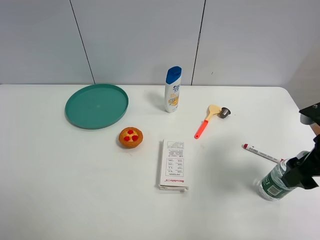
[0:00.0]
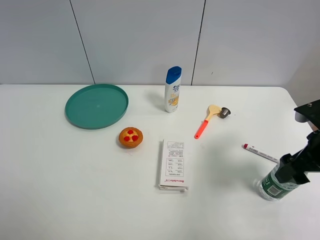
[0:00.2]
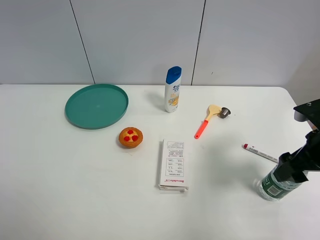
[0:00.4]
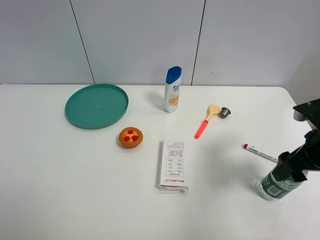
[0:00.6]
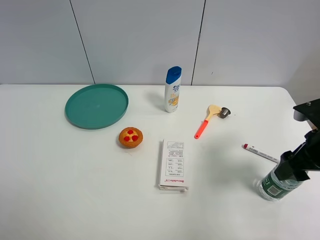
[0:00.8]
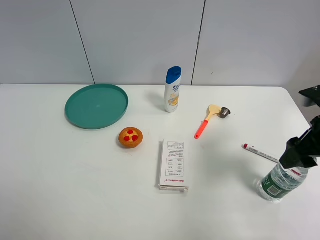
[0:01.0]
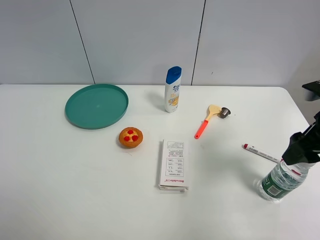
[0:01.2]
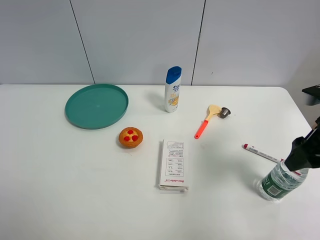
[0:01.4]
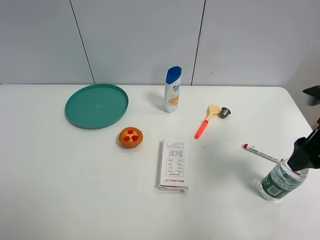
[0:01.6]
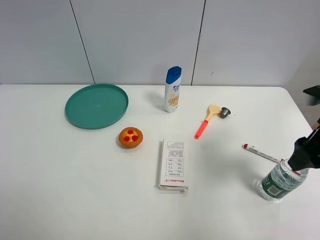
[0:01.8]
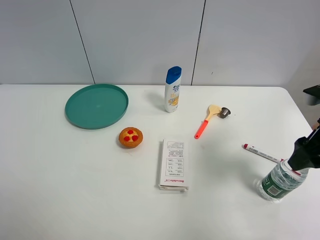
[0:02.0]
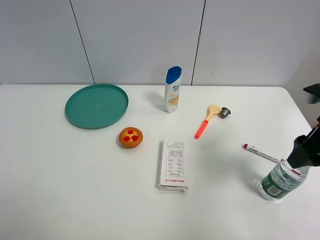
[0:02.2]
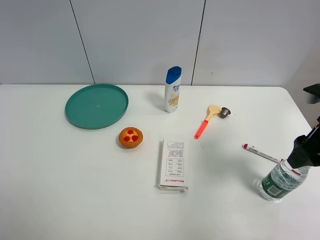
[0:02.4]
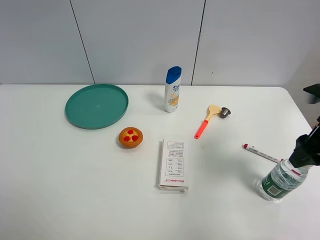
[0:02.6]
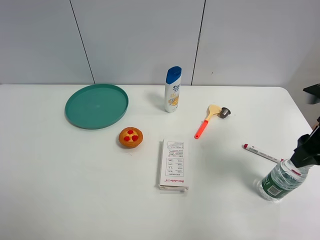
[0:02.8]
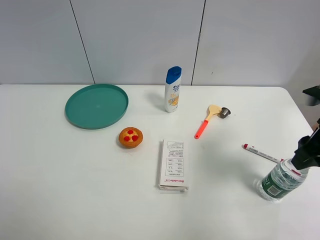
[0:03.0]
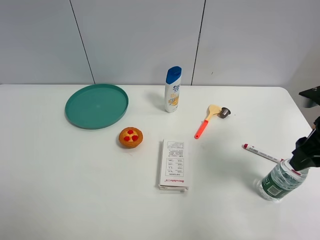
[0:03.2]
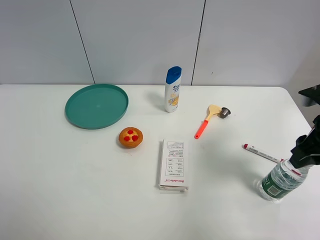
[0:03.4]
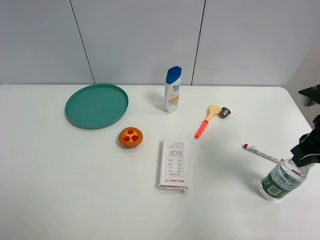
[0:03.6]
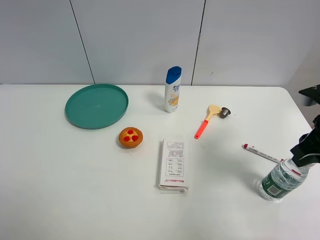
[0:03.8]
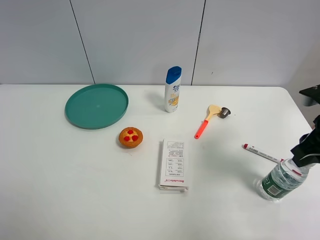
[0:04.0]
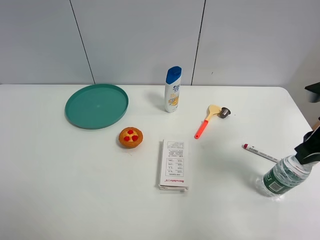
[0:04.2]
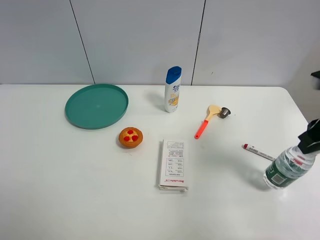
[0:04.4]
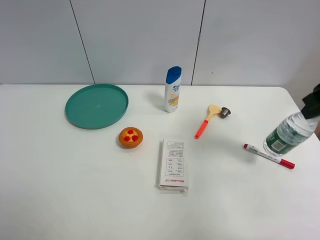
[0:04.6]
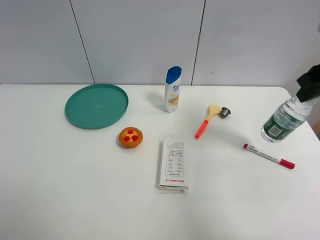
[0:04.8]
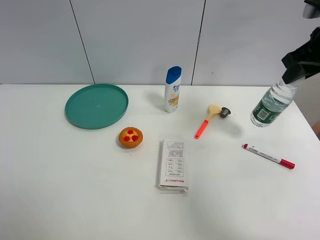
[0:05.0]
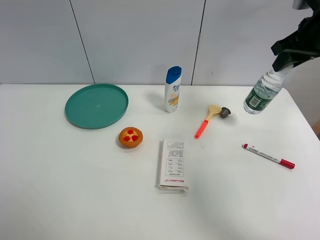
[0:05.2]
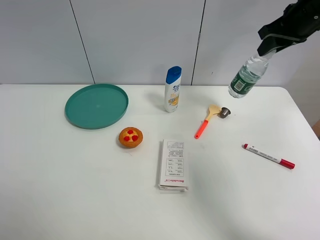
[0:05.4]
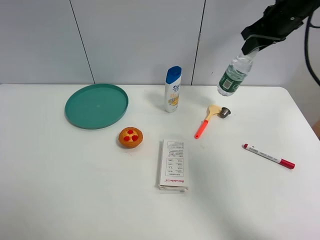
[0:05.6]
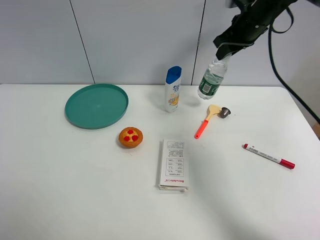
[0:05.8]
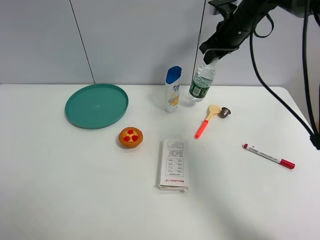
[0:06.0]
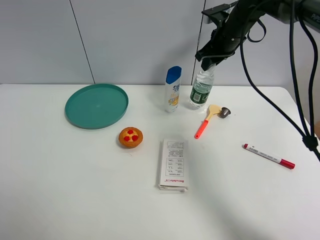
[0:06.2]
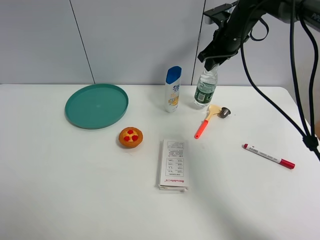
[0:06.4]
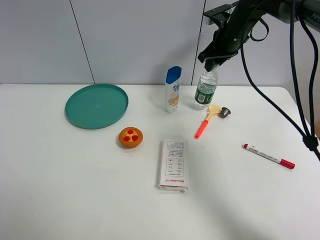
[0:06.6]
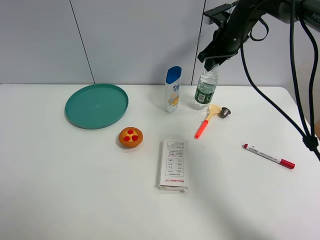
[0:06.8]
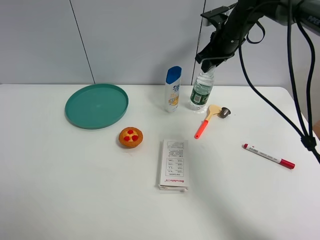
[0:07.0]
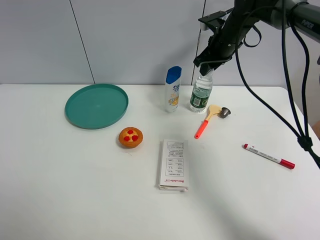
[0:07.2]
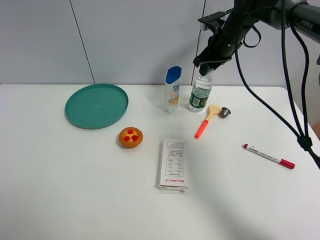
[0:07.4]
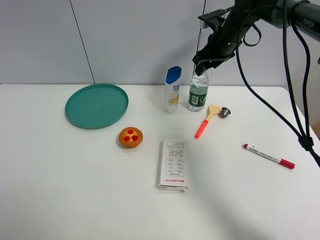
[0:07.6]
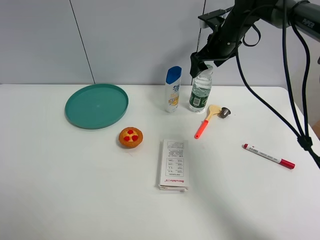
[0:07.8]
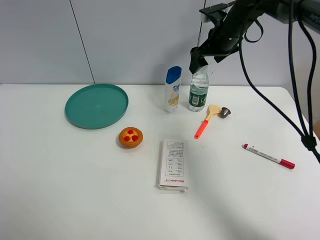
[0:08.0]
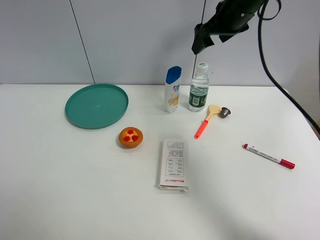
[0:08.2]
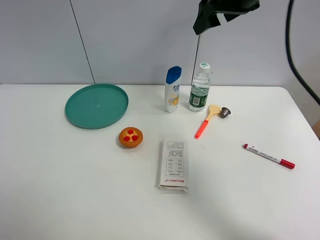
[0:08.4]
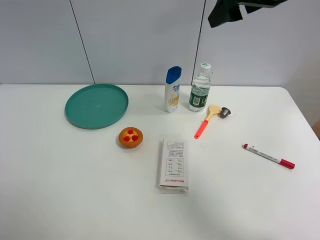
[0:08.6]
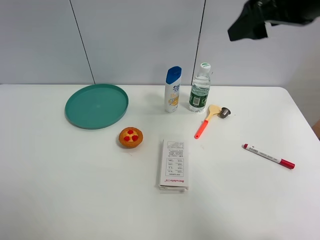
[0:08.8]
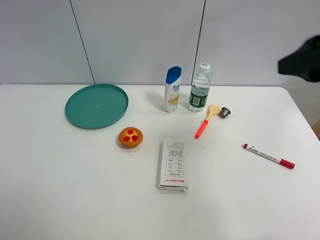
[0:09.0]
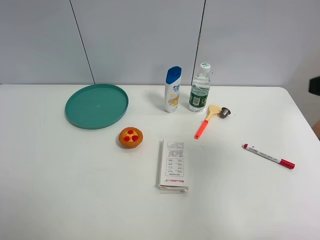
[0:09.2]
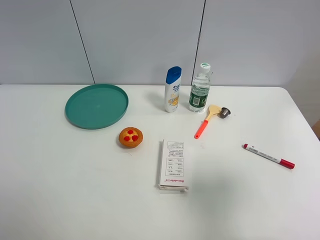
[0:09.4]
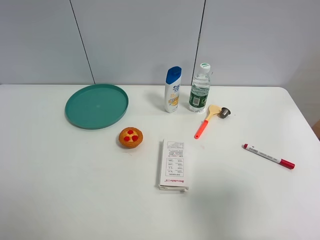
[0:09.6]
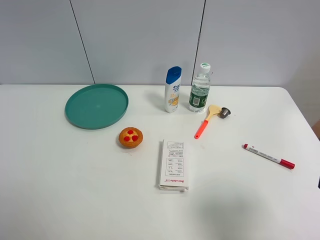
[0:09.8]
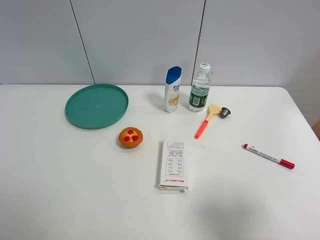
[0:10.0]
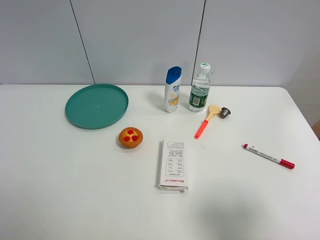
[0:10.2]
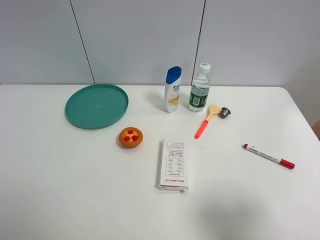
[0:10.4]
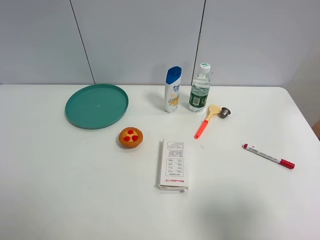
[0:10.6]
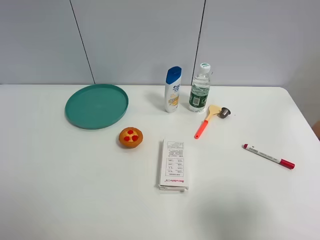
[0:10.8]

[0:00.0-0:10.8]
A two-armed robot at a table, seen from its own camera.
Task of the whole recording: the gripper move the object.
Step, 0:00.0 to 0:03.6: Grasp the YiBao mineral water with the right gripper.
Step, 0:03.8 to 0:07.6: Place the YiBao mineral water on the table with the right gripper.
0:00.0 to 0:01.6: The grippers move only a little.
0:01.6 to 0:03.0: Both grippers stay about where they are.
0:03.0 to 0:04.6: The right gripper shifts some 5 cm upward.
0:04.6 to 0:06.2: The right gripper shifts approximately 25 cm forward and to the left.
0:06.2 to 0:07.8: The right gripper opens.
0:07.8 to 0:09.2: The right gripper shifts about 35 cm backward.
0:09.2 to 0:10.8: The right gripper shifts some 15 cm backward and downward.

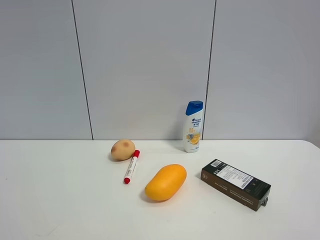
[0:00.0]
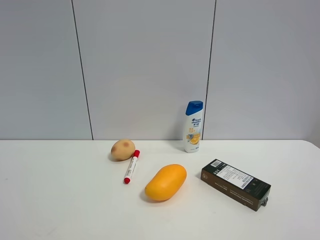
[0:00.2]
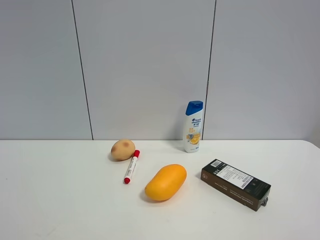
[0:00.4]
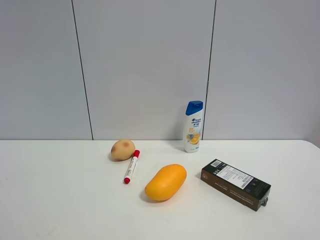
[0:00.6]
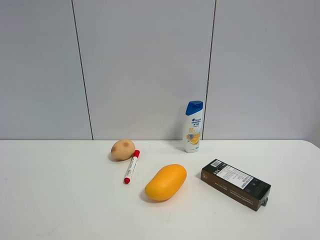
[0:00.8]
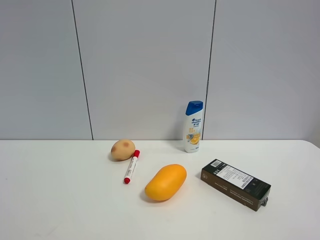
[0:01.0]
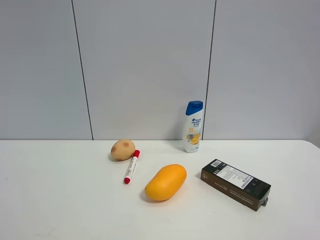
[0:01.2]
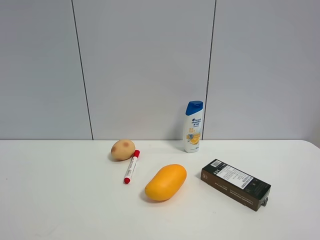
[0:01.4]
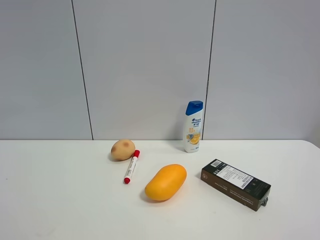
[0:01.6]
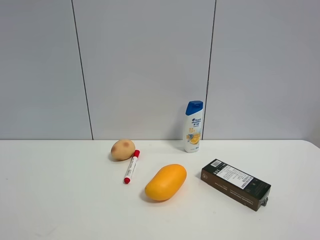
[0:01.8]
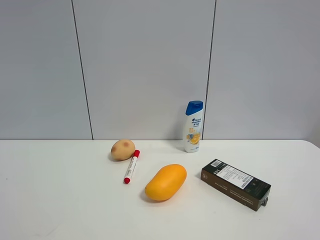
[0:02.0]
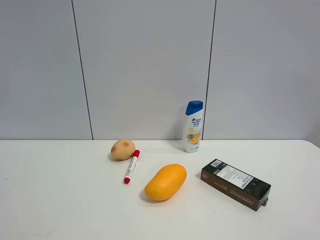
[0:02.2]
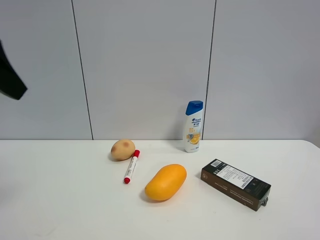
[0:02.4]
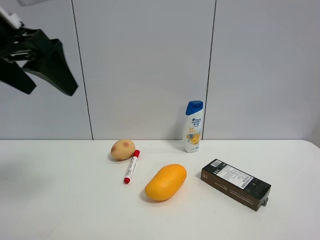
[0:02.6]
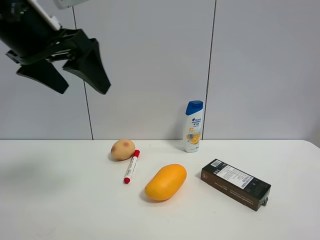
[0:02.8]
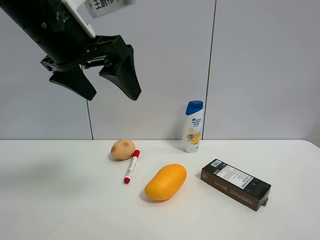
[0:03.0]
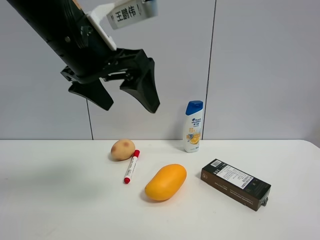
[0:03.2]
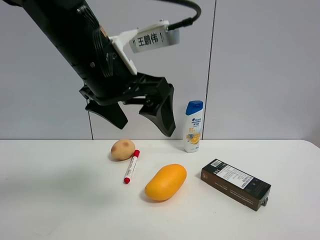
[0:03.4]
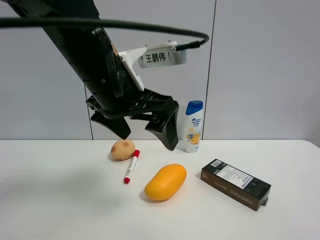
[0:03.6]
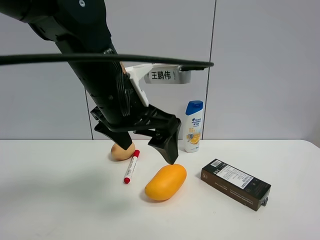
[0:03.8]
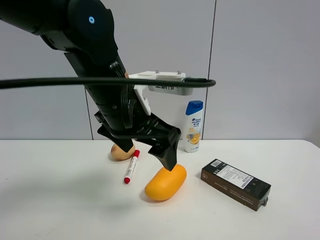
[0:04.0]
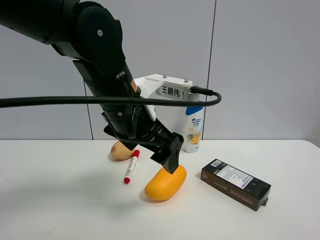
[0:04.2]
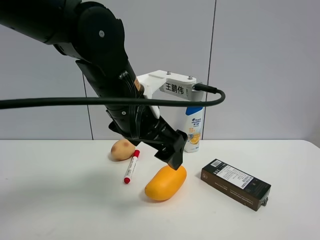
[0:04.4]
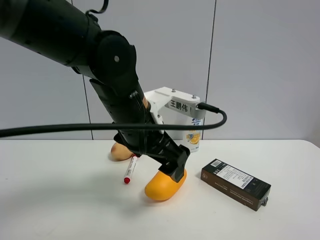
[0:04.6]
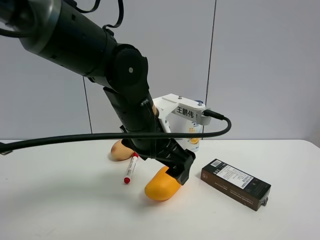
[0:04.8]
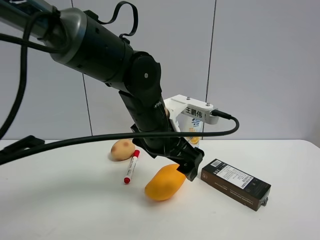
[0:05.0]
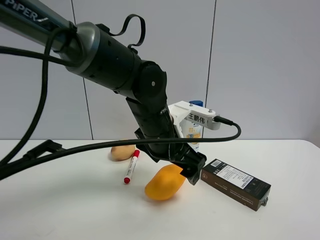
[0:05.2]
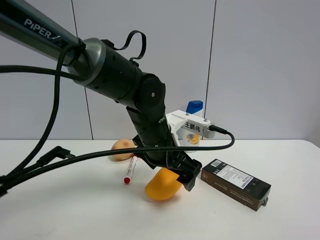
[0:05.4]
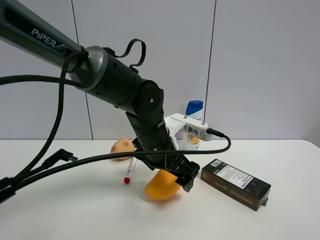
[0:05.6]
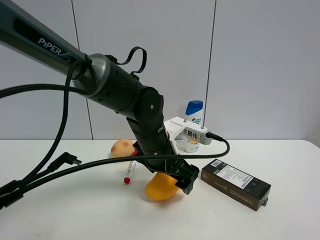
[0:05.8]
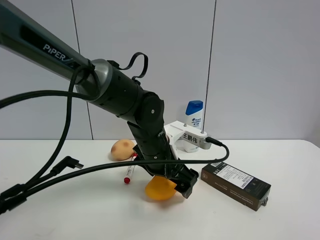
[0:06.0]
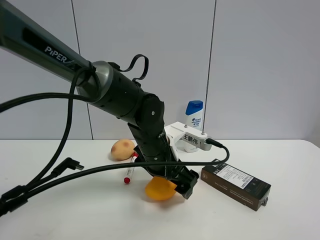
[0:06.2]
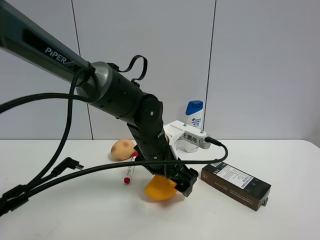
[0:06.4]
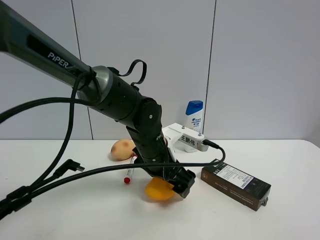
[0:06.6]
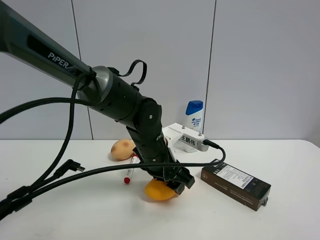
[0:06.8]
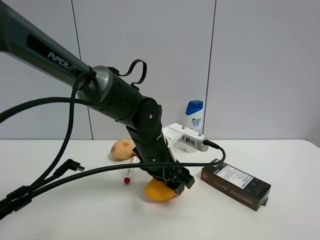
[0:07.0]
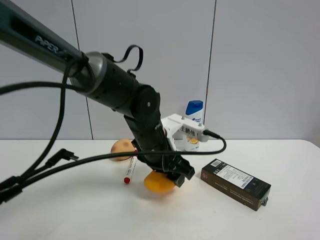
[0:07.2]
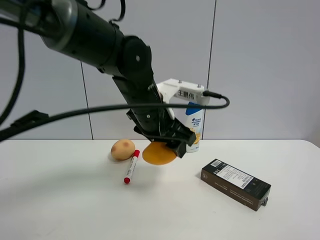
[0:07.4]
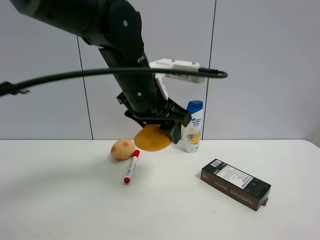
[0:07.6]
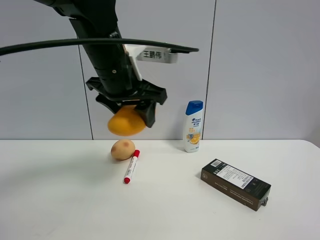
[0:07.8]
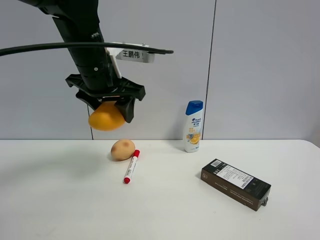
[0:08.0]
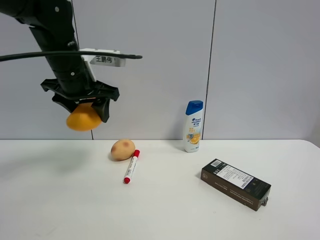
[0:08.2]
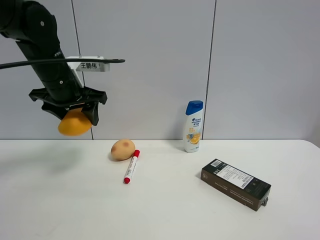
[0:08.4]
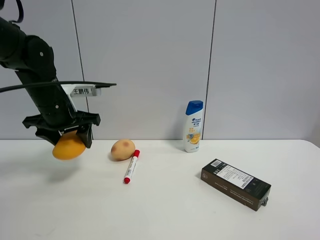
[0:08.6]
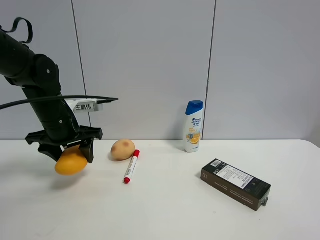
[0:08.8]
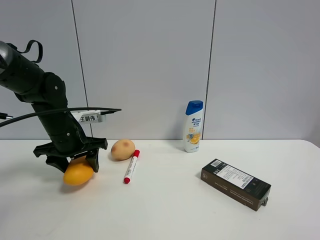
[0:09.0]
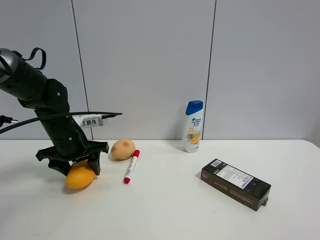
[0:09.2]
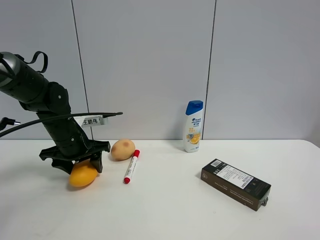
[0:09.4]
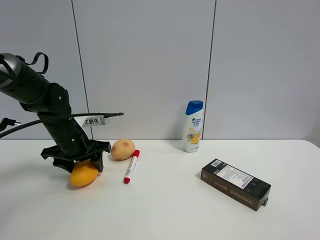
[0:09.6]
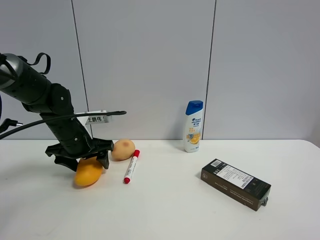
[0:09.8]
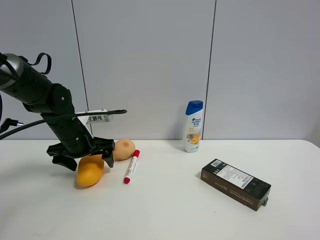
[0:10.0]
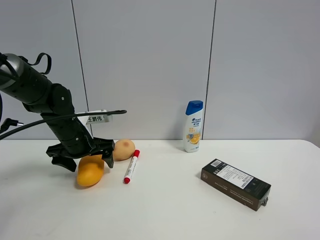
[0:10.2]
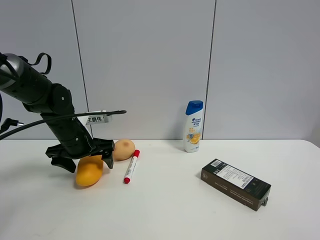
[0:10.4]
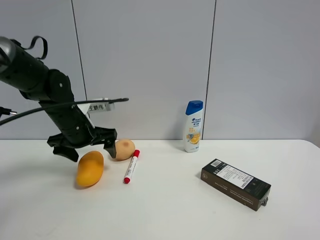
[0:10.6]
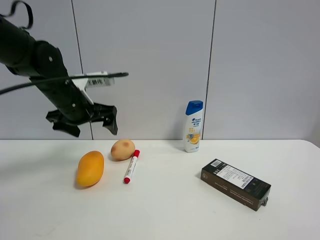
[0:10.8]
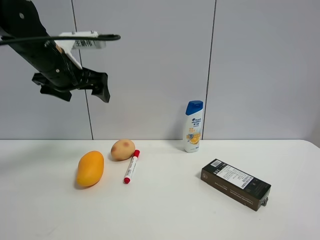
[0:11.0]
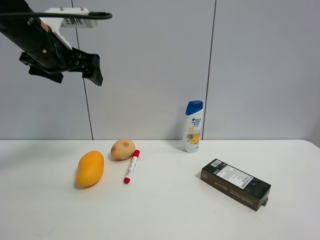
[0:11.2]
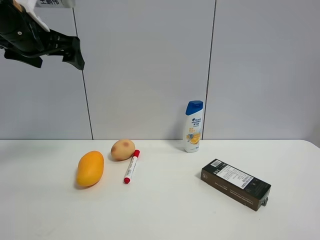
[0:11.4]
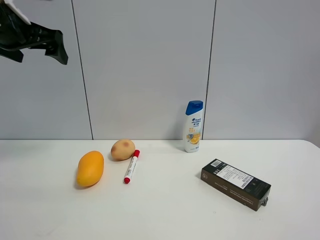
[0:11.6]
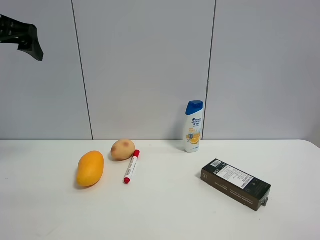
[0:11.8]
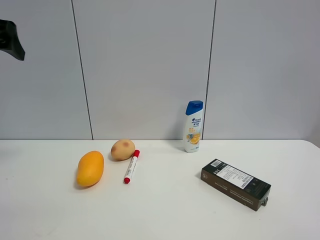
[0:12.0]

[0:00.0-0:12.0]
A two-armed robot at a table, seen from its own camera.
Task of the whole recording: the gripper move the object.
Step, 0:00.0 to 0:06.8: Grasp the mango with the left gripper.
Step, 0:07.0 to 0:10.4: Place the mango on the table with the left gripper.
0:01.6 to 0:03.0: The left gripper is displaced forward and to the right by approximately 30 cm.
0:03.0 to 0:04.4: The left gripper shifts some 15 cm downward and to the right.
0:04.4 to 0:06.0: The left gripper travels downward and forward by about 10 cm.
0:06.0 to 0:07.6: The left gripper shifts approximately 15 cm upward, and closes up.
0:07.6 to 0:09.0: The left gripper travels to the left and downward by some 20 cm.
0:09.0 to 0:10.4: The left gripper opens its fingers.
0:10.4 to 0:12.0: The left gripper is displaced upward, to the left and backward by approximately 30 cm.
